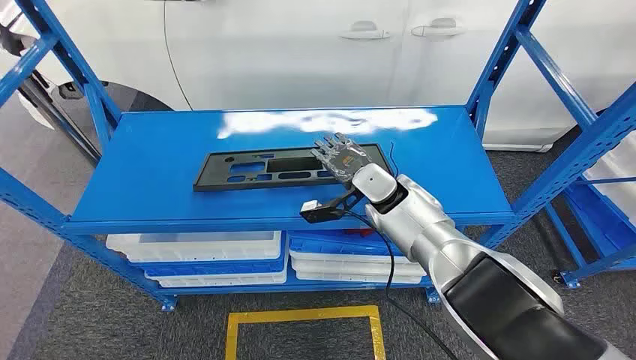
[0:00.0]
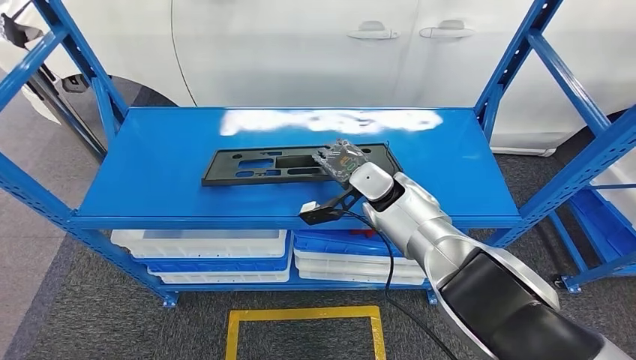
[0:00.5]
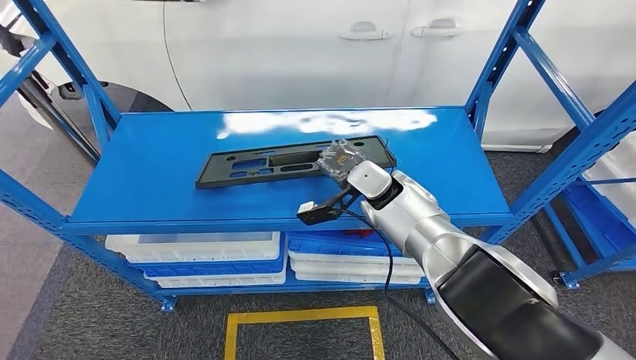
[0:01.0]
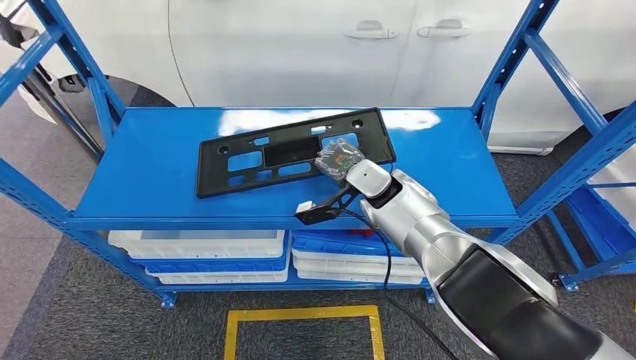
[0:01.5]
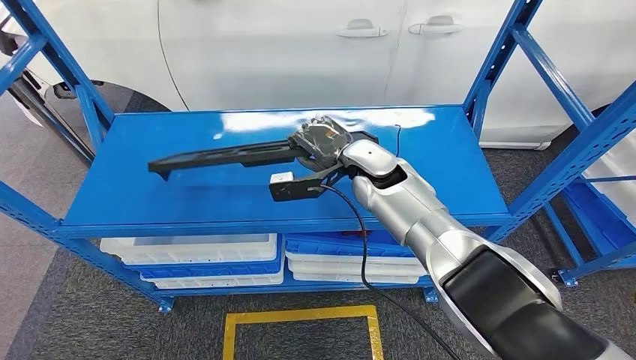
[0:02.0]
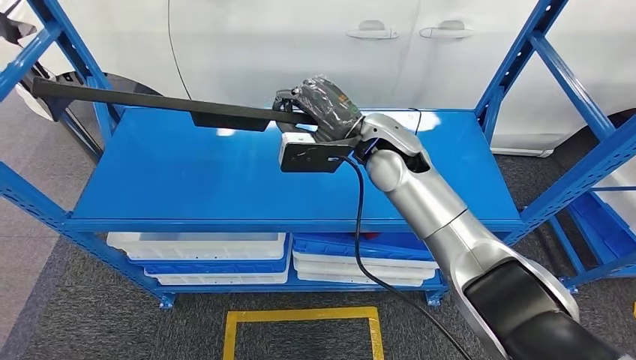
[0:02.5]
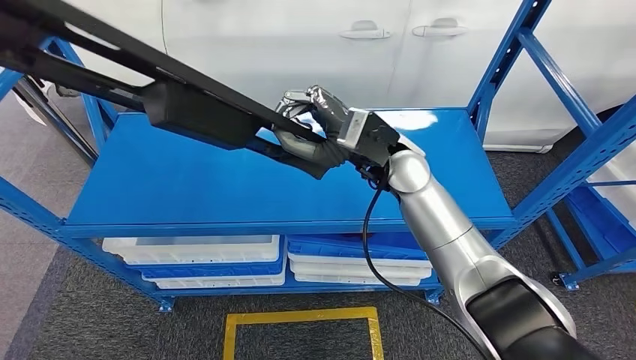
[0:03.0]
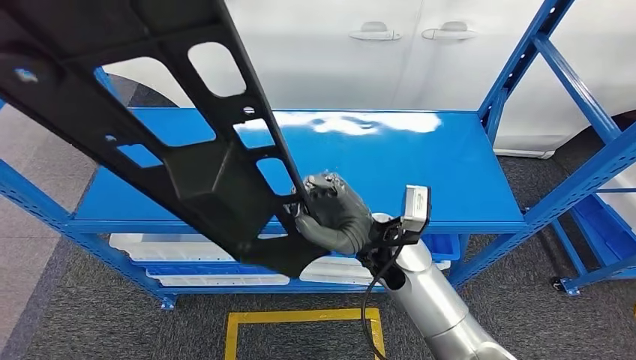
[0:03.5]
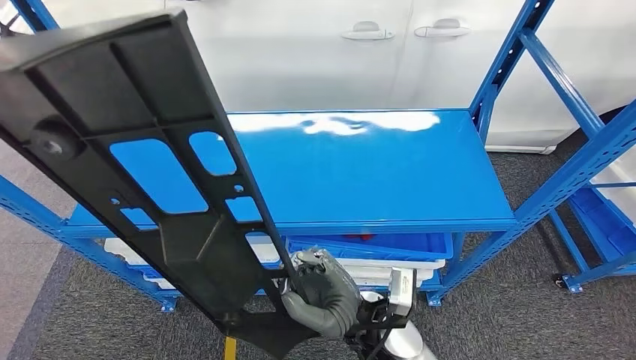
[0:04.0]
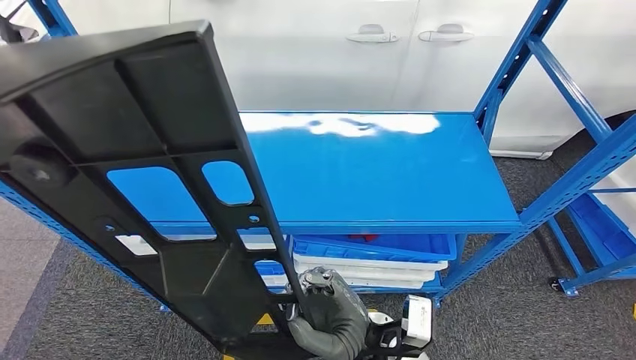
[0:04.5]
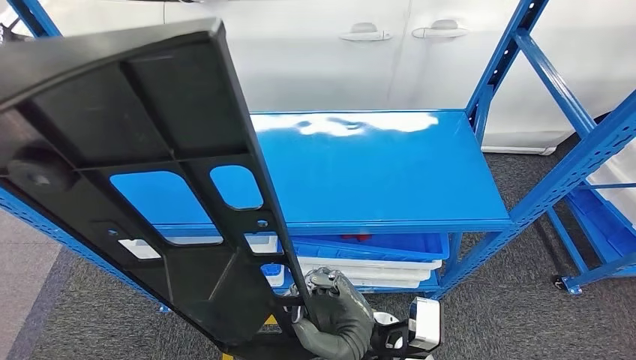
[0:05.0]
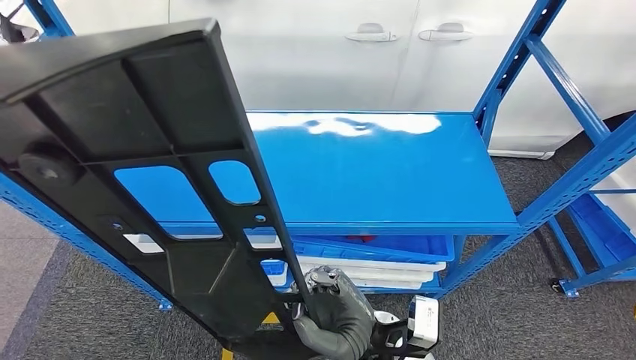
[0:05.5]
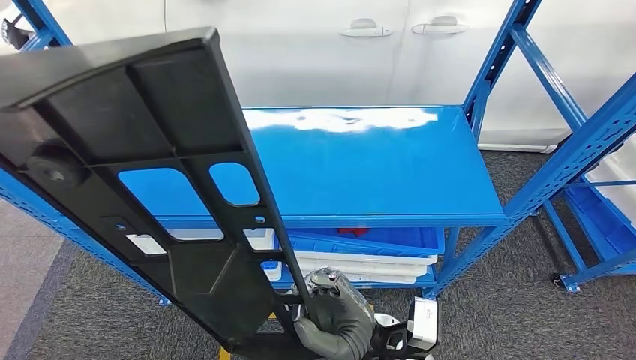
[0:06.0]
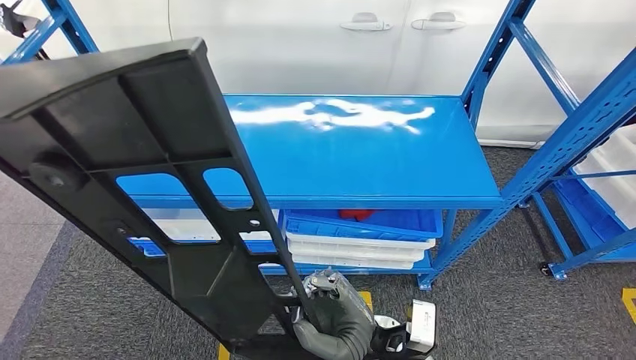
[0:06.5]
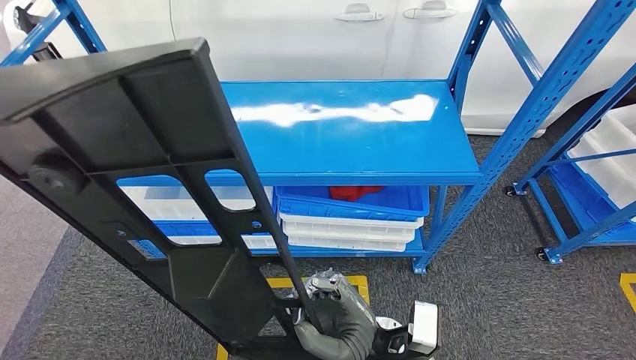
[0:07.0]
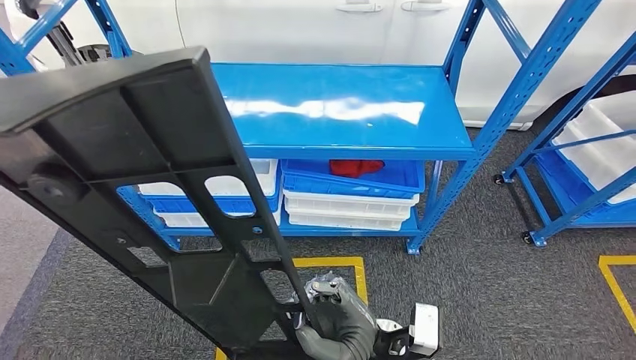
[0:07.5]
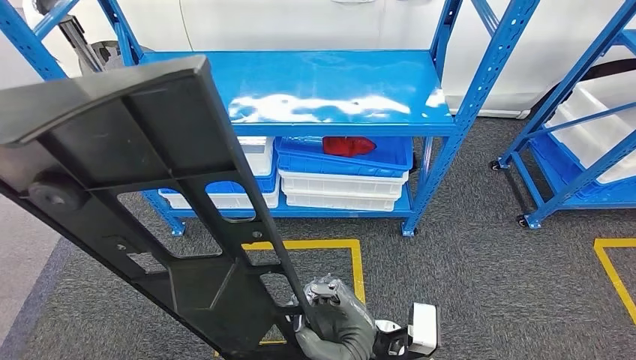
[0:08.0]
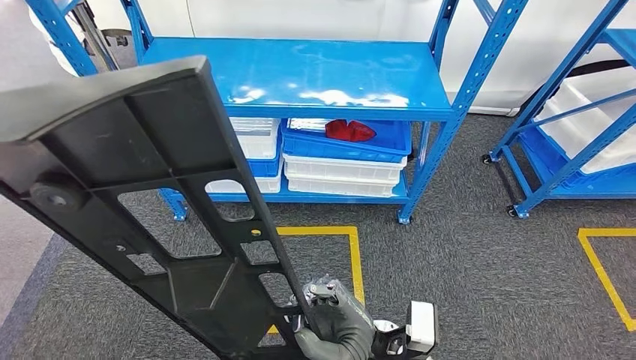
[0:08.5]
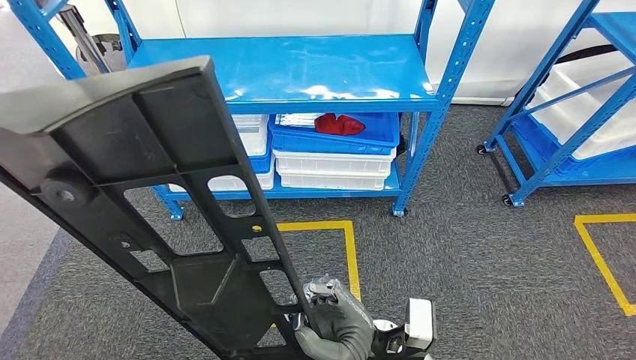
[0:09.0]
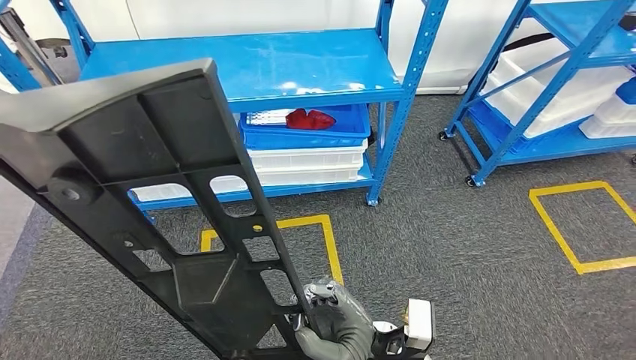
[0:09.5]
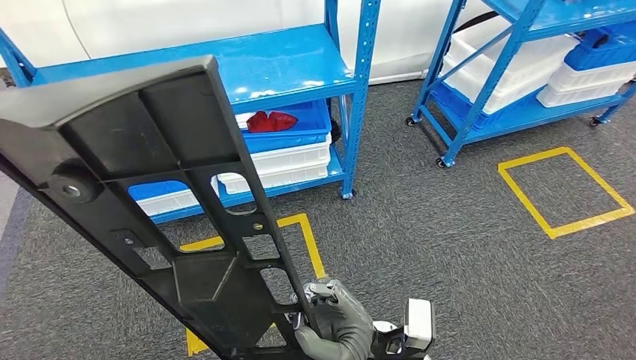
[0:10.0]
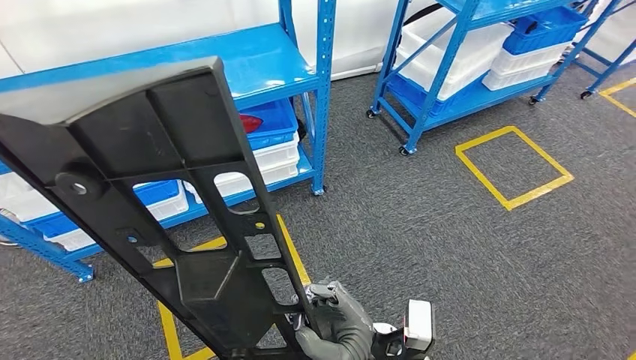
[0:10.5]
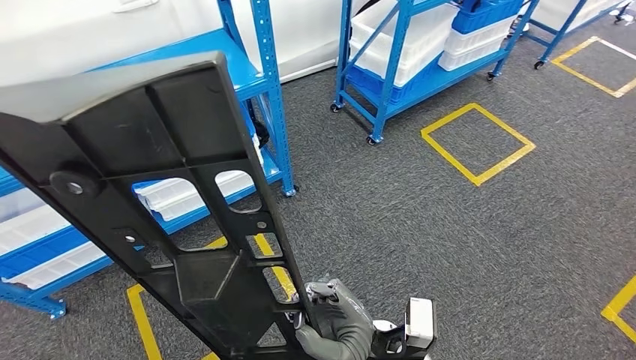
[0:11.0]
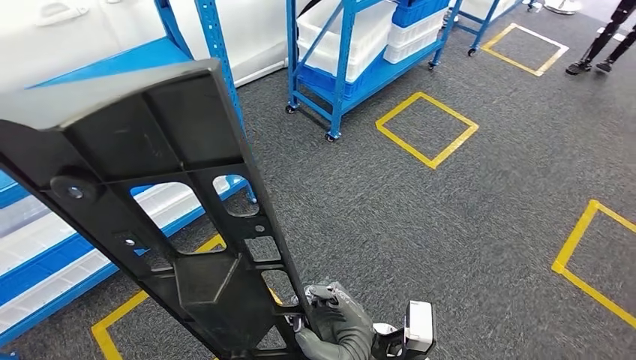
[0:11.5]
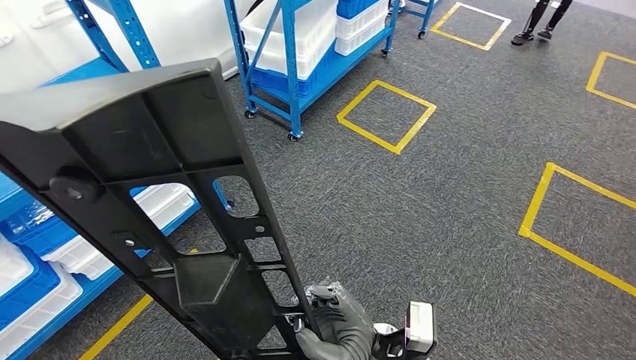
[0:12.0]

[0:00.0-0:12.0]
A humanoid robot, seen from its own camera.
Step, 0:00.0 to 0:06.5: Pick up the large material from the shelf.

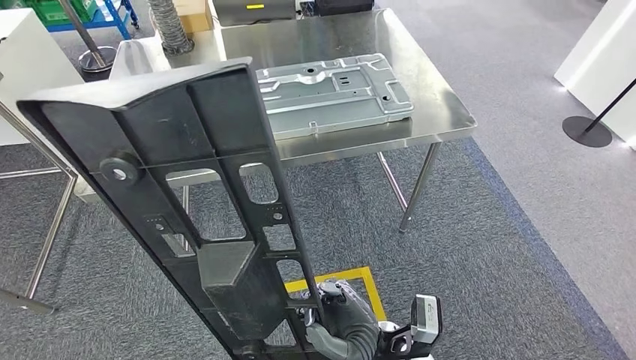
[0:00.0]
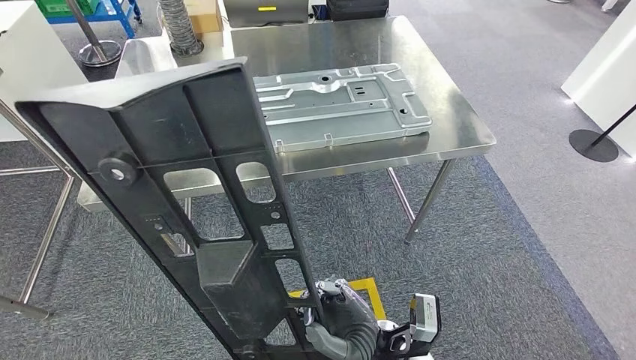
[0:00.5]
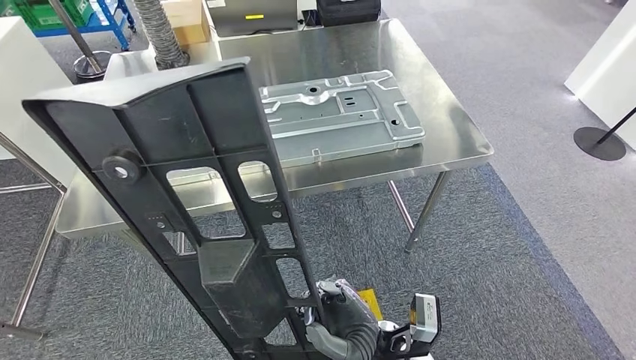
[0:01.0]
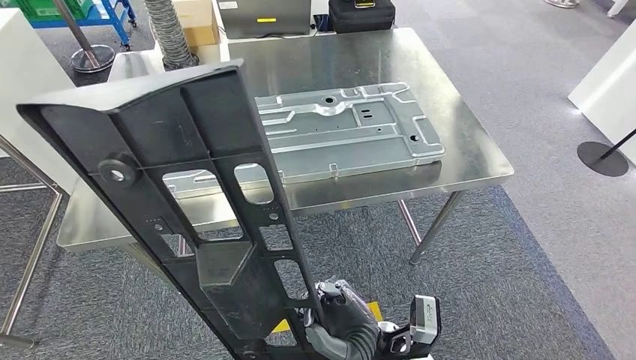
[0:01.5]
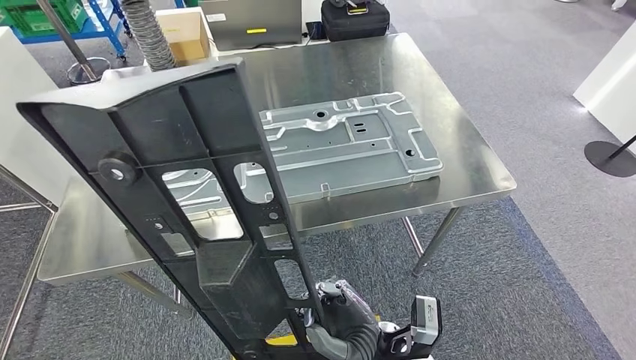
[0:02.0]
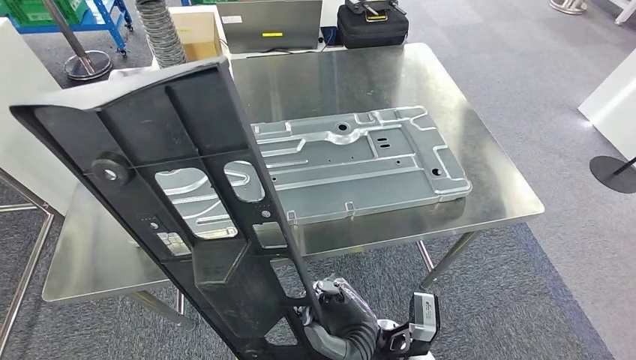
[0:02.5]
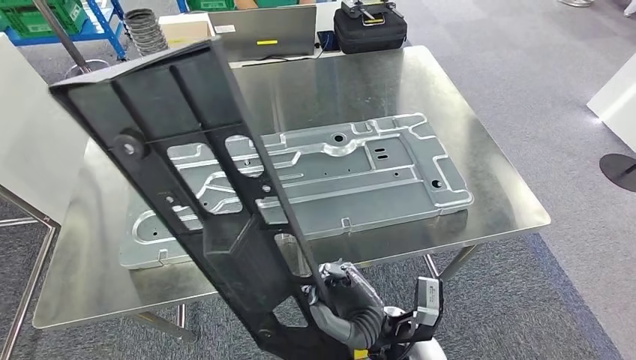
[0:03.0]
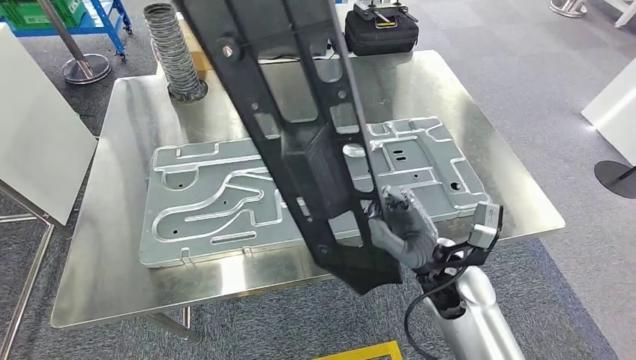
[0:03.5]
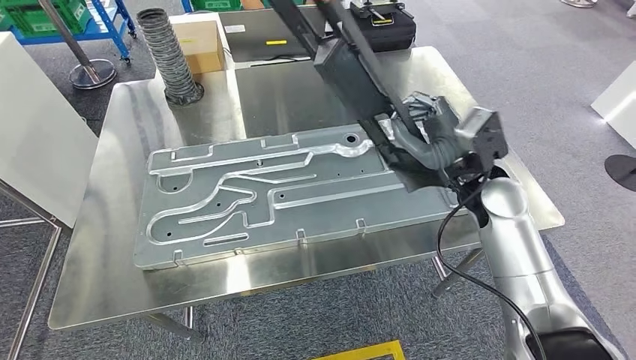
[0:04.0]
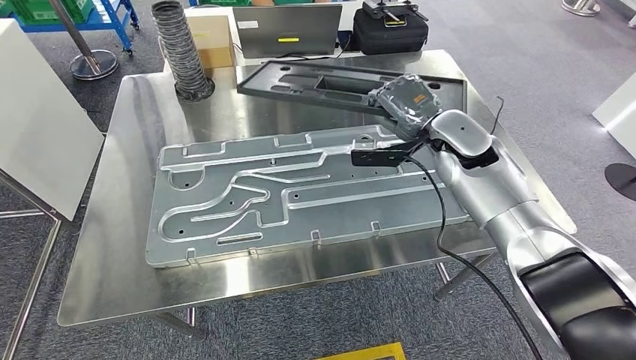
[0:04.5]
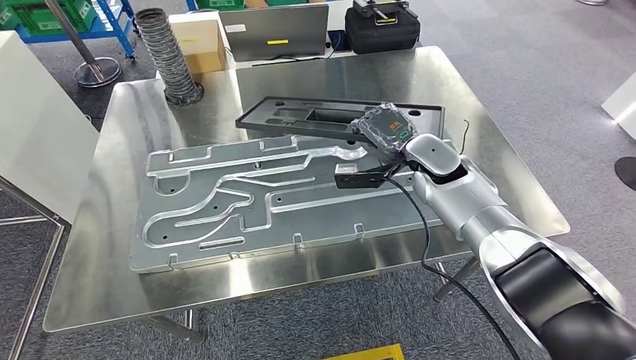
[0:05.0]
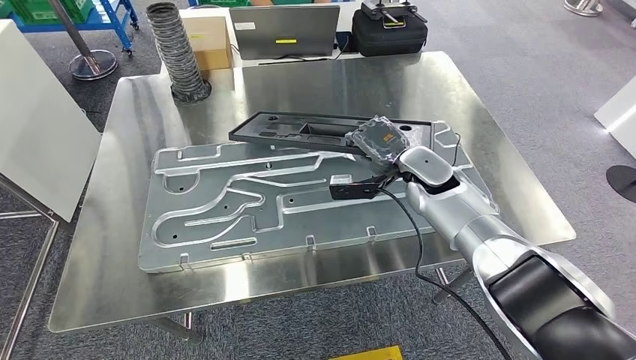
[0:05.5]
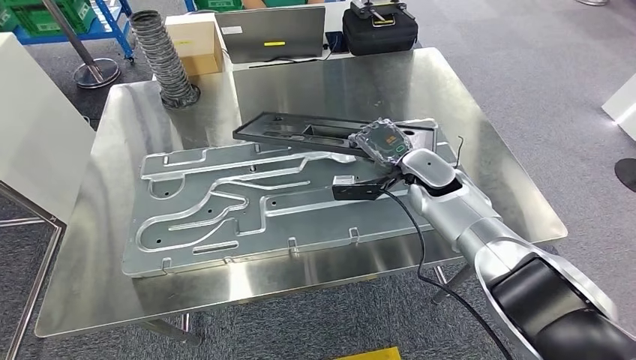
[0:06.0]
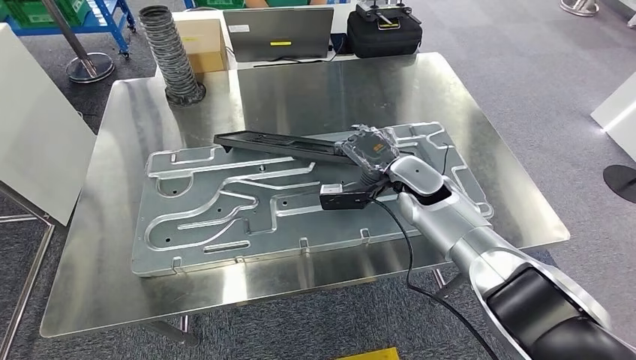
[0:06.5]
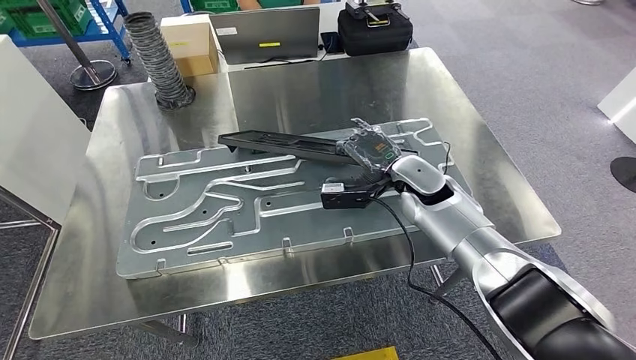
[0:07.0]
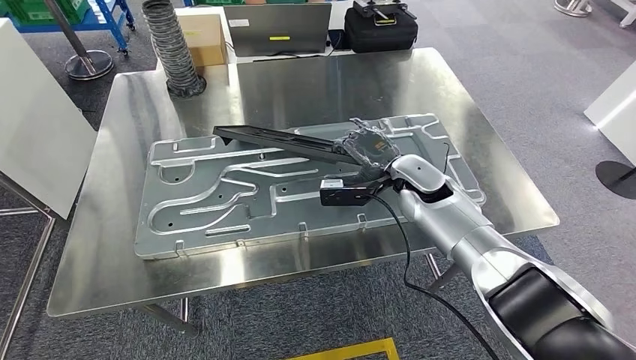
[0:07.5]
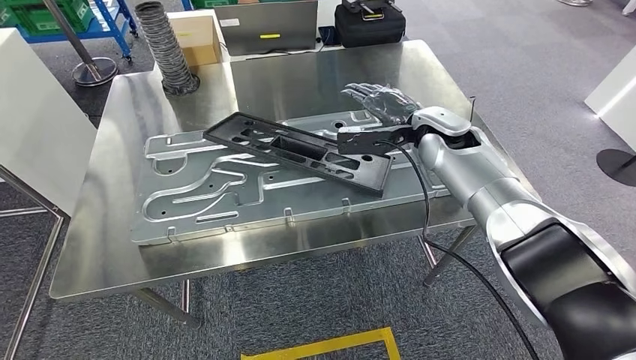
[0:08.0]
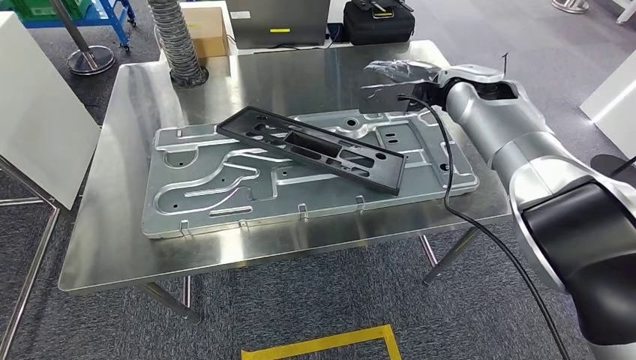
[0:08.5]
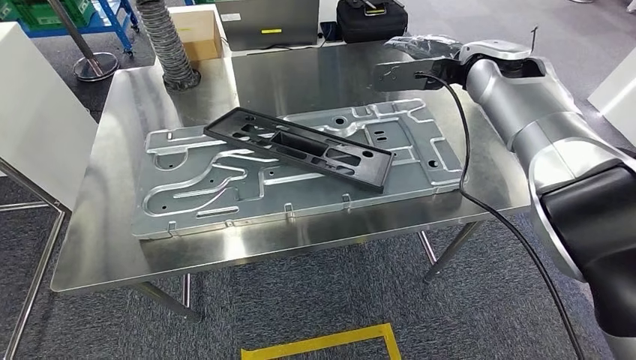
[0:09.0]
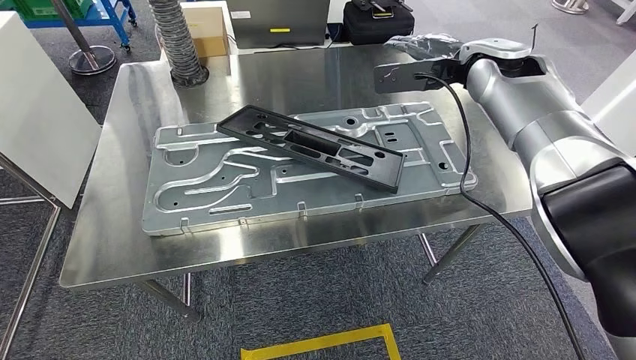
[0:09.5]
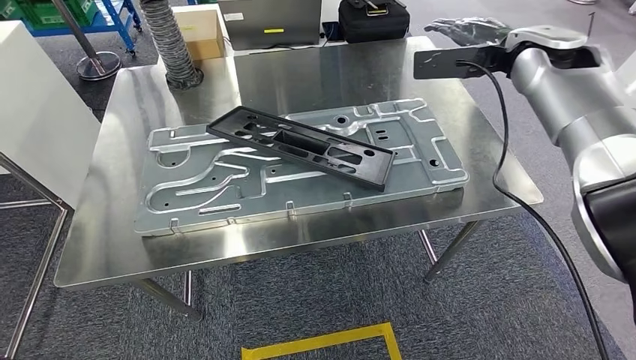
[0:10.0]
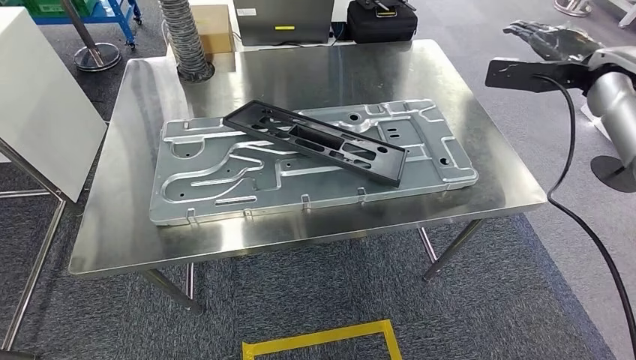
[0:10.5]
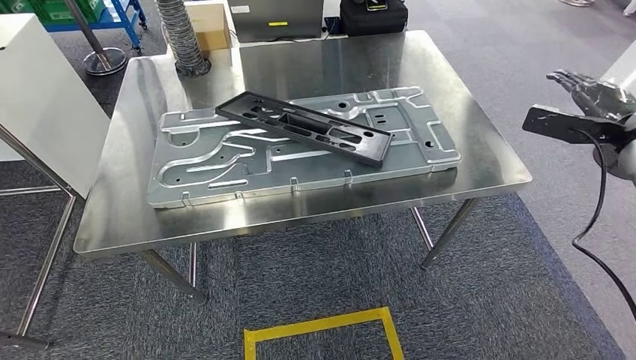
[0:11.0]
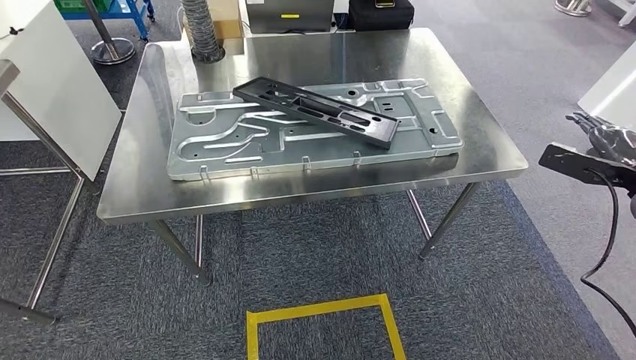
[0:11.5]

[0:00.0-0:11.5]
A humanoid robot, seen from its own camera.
Step, 0:00.0 to 0:03.5: Move the large material to the workbench.
Step, 0:05.5 to 0:09.5: Insert the large material into the corresponding slot on the workbench.
